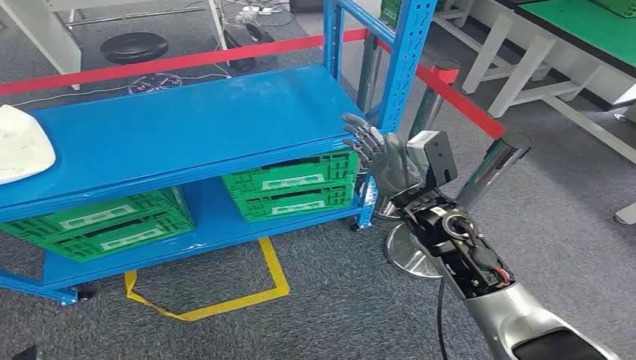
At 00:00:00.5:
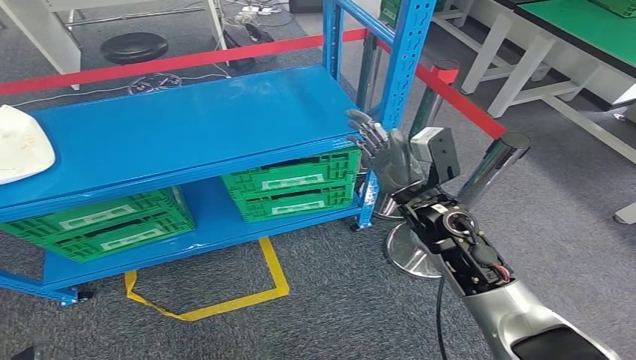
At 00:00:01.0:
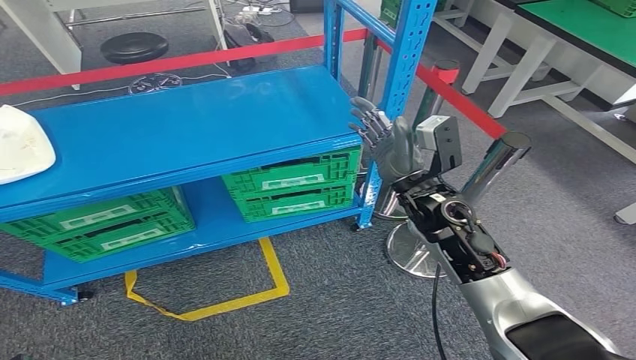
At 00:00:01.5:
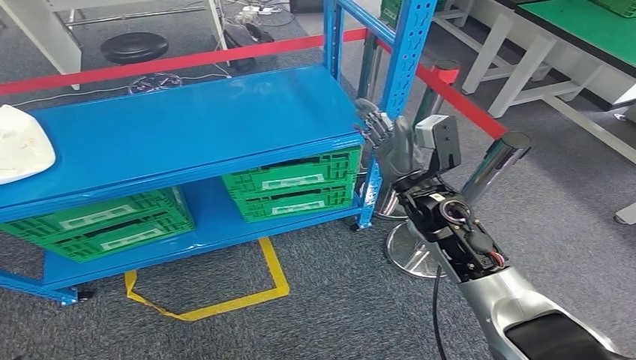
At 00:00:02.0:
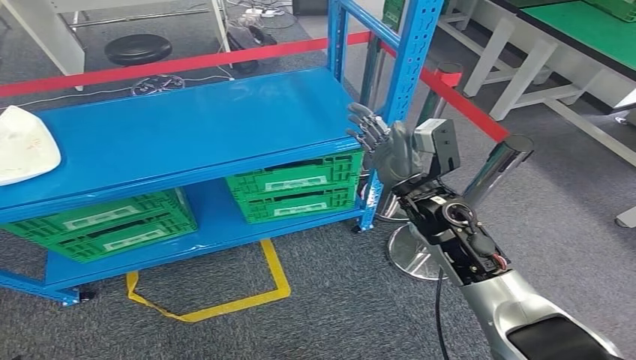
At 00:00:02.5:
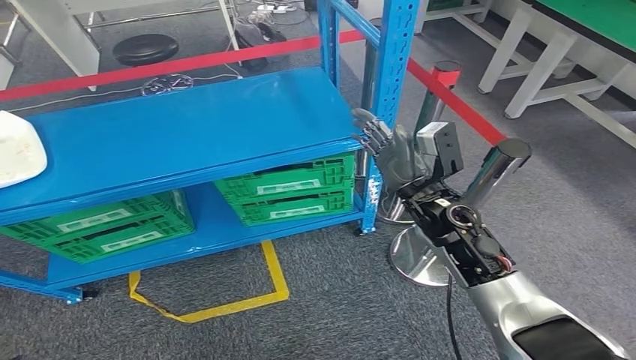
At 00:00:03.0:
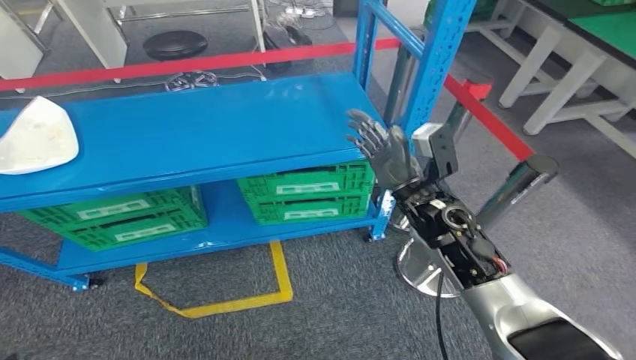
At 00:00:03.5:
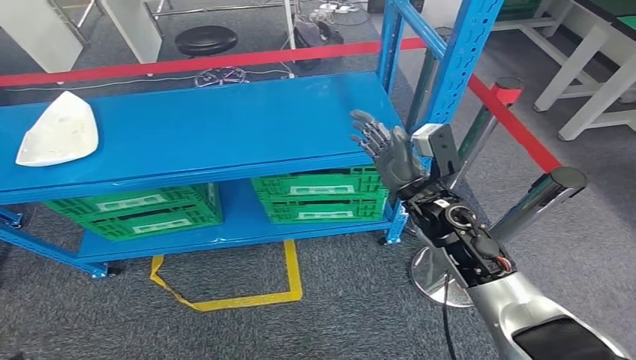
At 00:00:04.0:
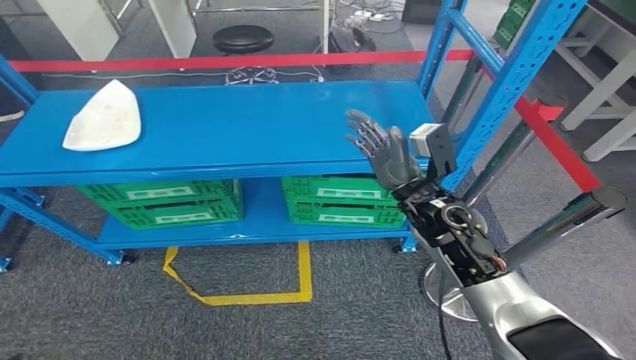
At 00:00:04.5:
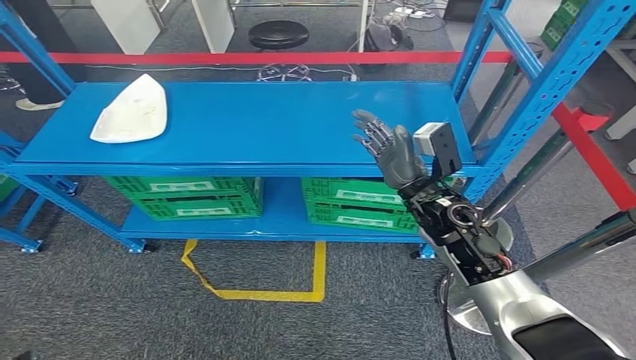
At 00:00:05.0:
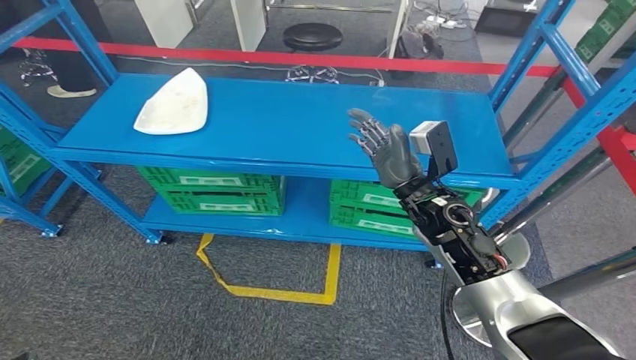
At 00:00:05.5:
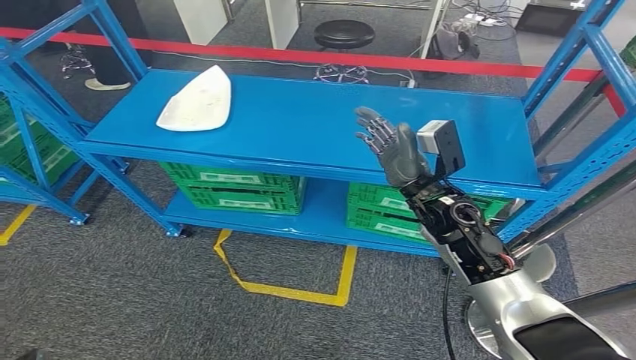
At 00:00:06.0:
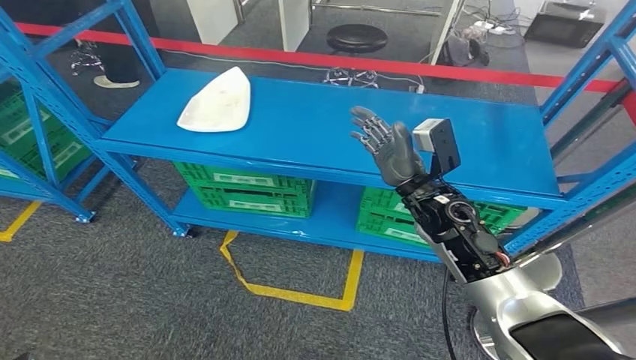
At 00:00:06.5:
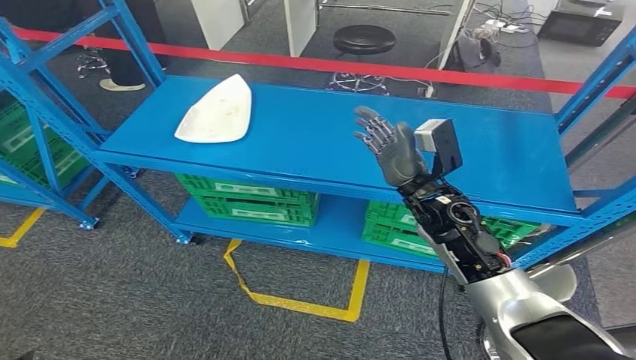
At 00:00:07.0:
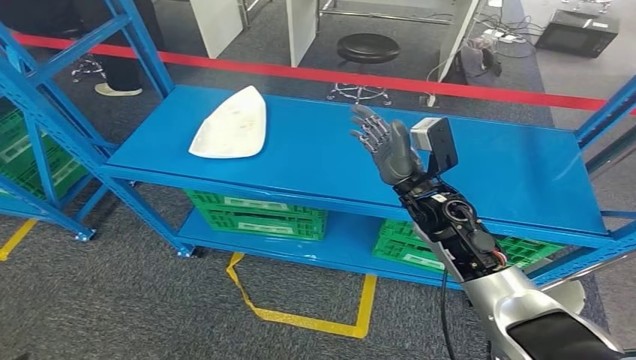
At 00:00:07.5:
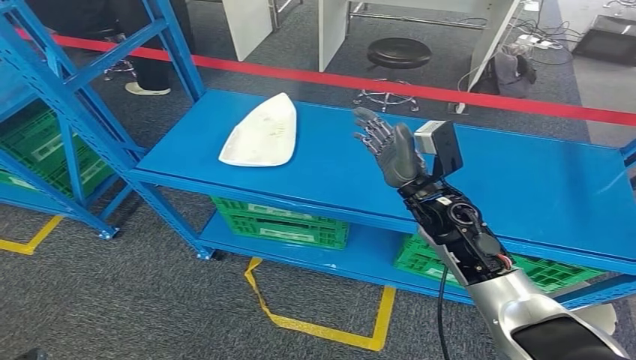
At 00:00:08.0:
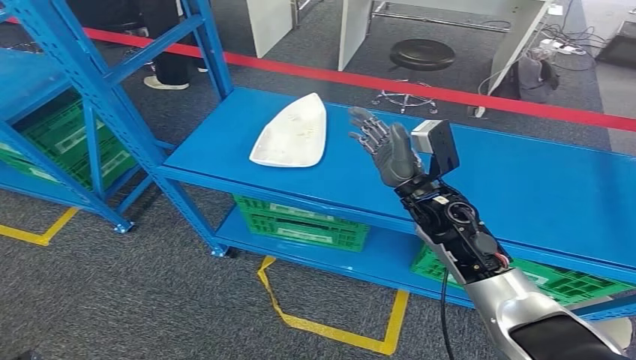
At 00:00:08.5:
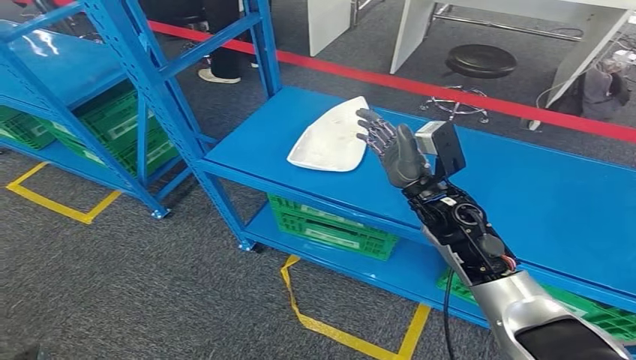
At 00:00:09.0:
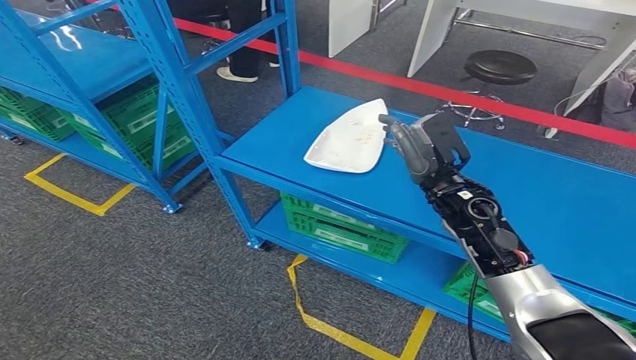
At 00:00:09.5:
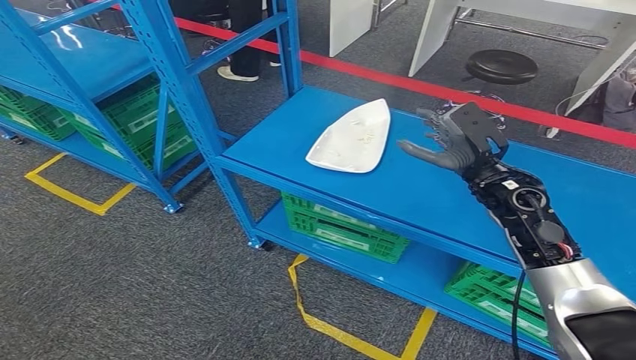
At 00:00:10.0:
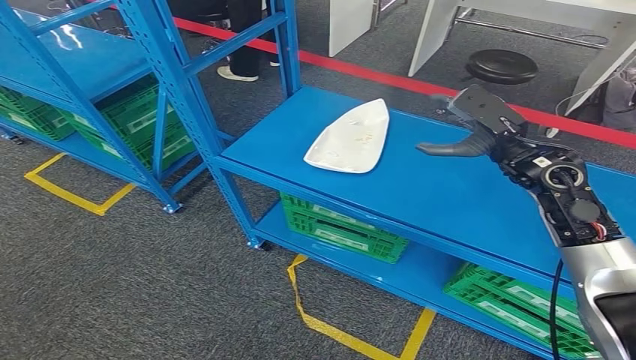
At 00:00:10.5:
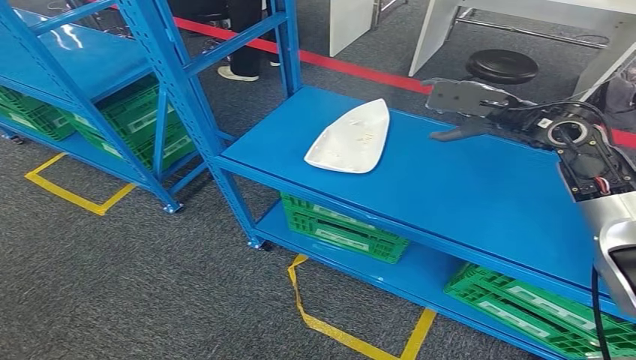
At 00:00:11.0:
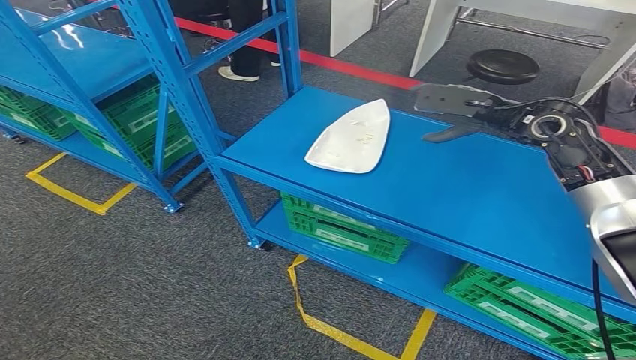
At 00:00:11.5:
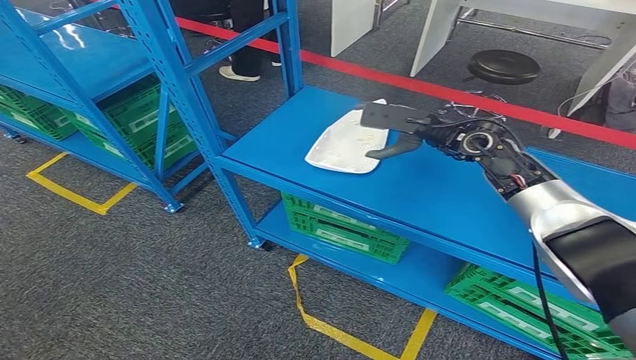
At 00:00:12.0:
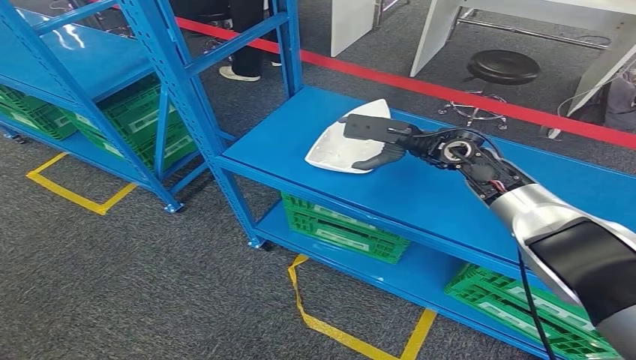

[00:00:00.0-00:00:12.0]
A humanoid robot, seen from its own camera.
00:00:10.0 to 00:00:12.0: The right hand shifts about 10 cm forward and to the left.

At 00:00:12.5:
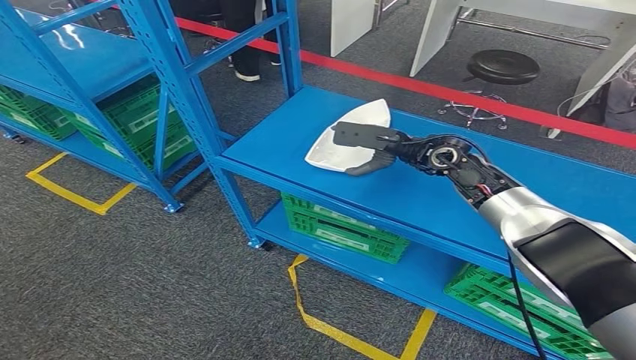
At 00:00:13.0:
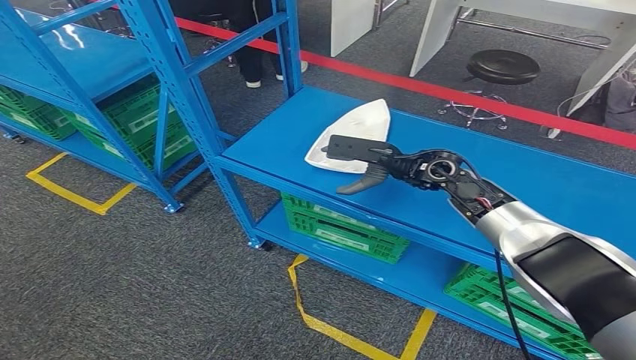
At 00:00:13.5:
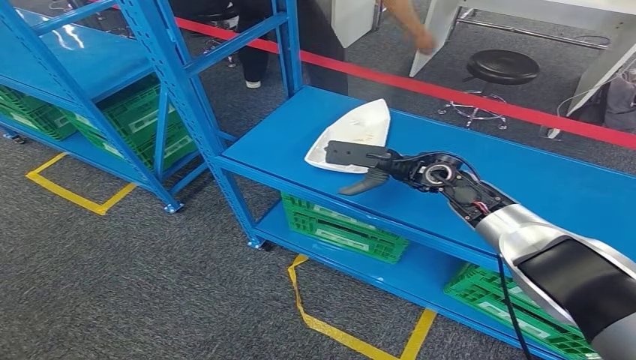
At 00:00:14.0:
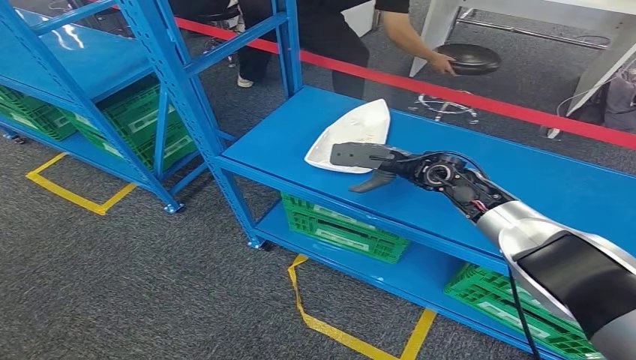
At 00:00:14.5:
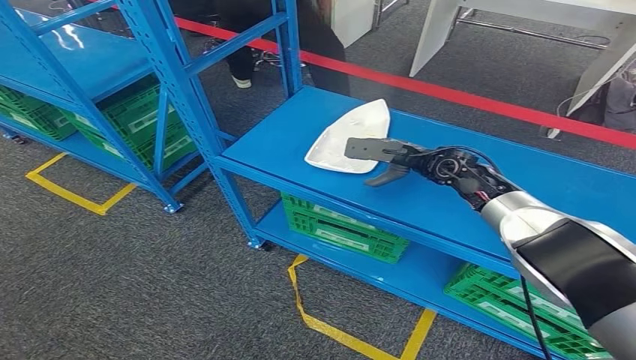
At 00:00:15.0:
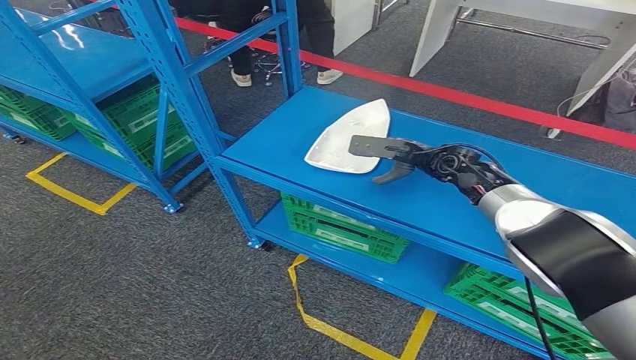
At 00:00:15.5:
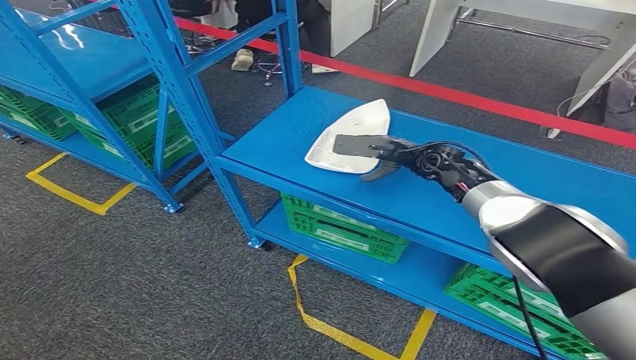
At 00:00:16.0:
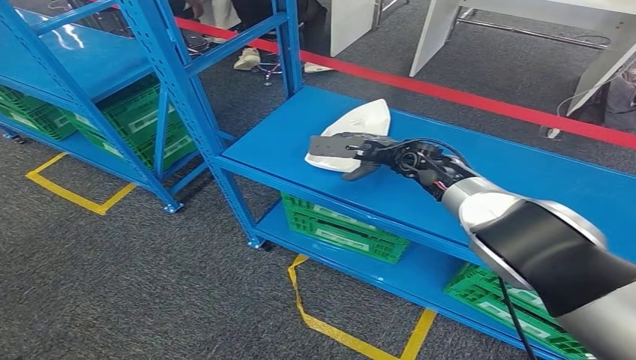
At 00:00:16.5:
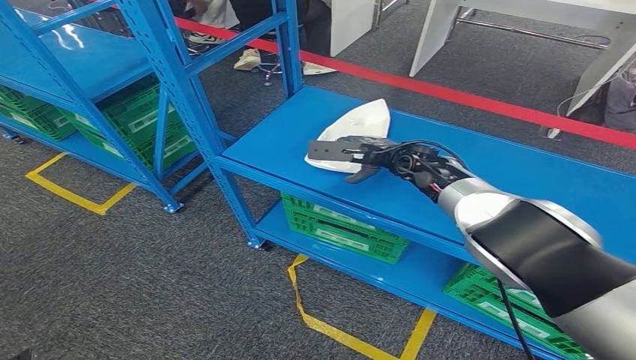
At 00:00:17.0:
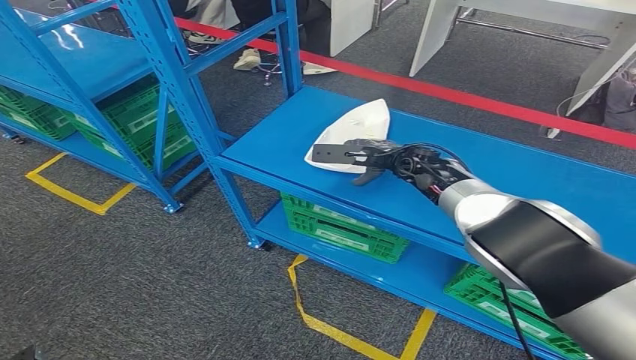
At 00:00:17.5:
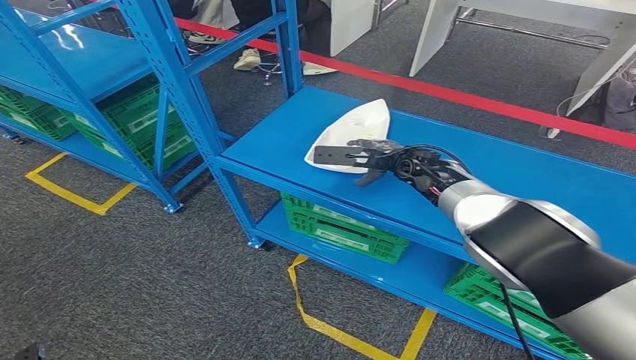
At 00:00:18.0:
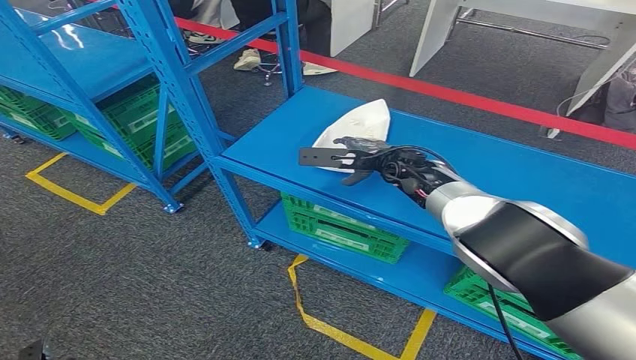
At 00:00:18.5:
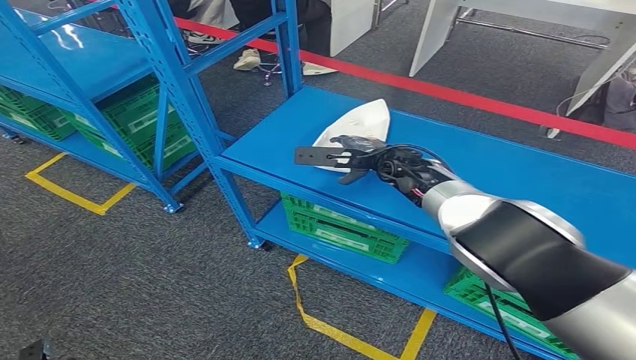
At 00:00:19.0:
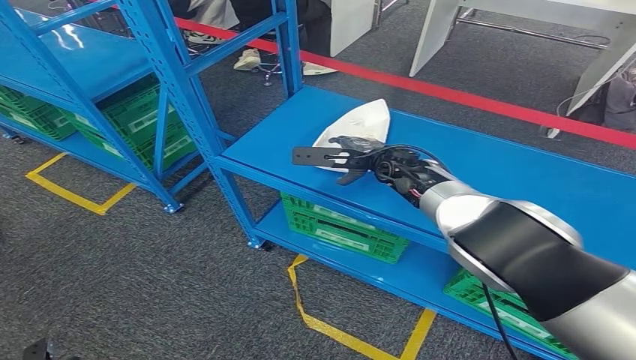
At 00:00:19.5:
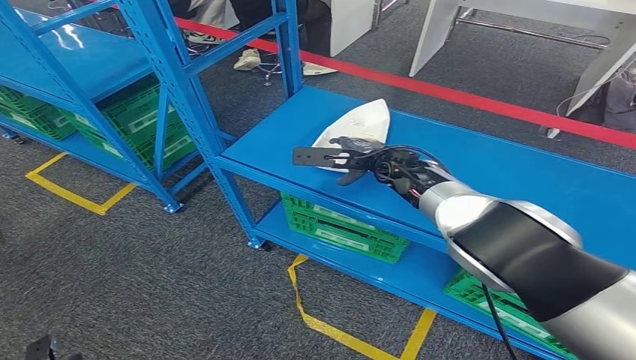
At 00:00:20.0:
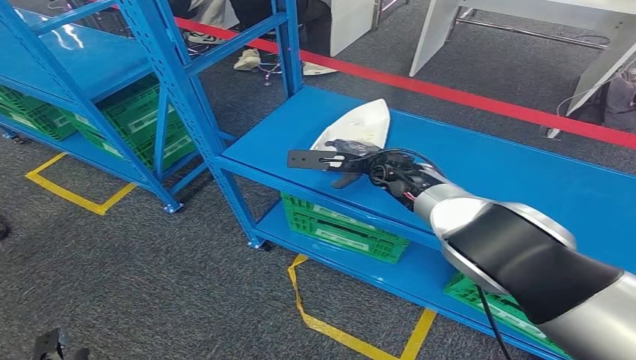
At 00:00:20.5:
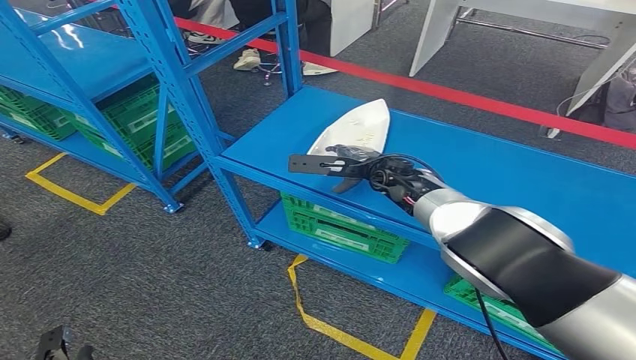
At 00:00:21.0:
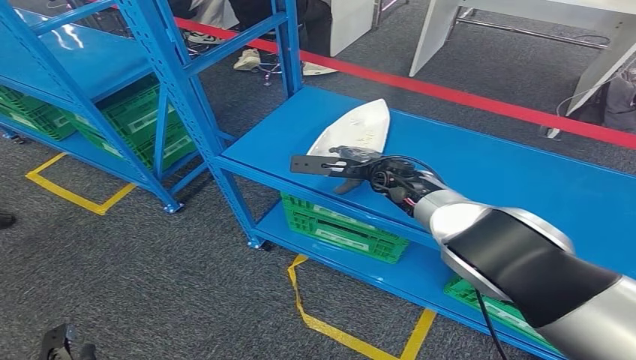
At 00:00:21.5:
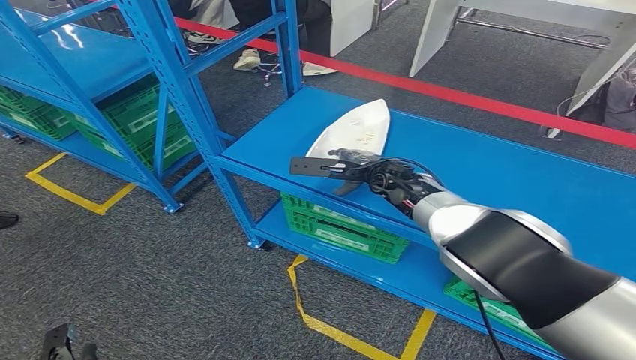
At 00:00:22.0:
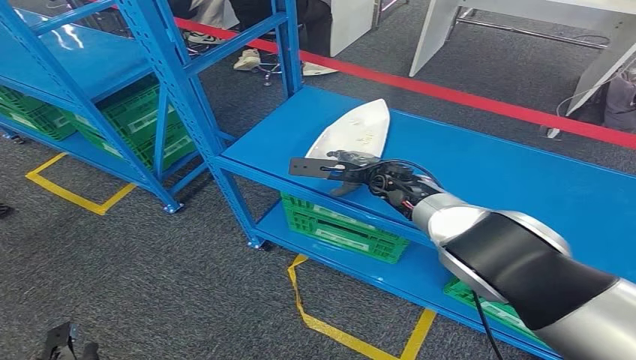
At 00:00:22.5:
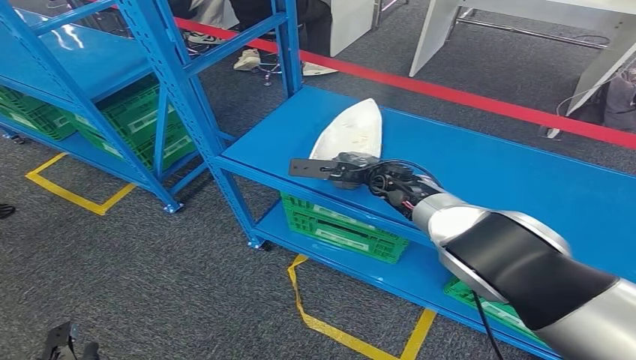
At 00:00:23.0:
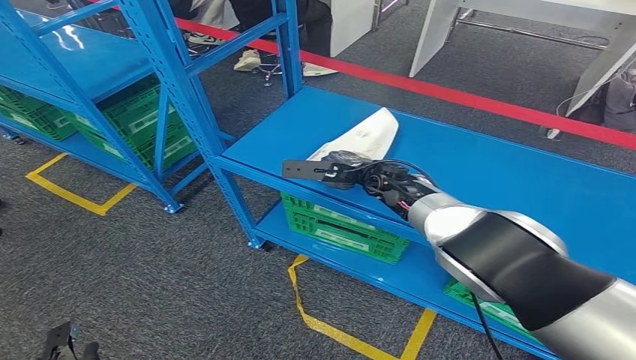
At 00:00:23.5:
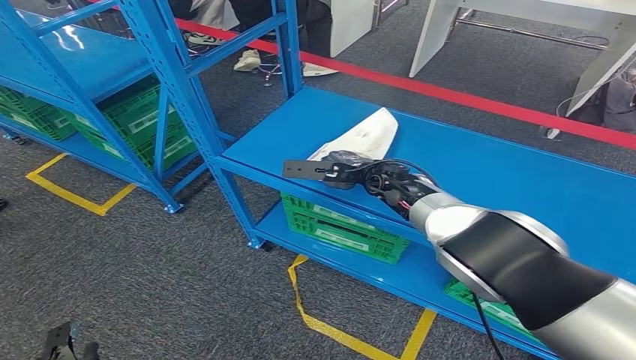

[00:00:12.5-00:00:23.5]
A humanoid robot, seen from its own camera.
00:00:12.5 to 00:00:14.5: The hands stay close to where they were, moving slightly.
00:00:14.5 to 00:00:16.0: The right hand moves to the left, about 5 cm.
00:00:16.0 to 00:00:20.0: The hands make only small movements.
00:00:20.0 to 00:00:21.5: The hands move only a little.
00:00:21.5 to 00:00:23.5: Neither hand changes place.
